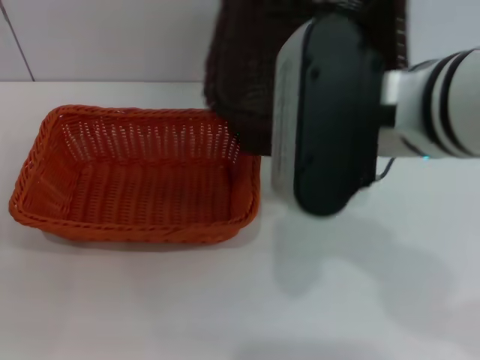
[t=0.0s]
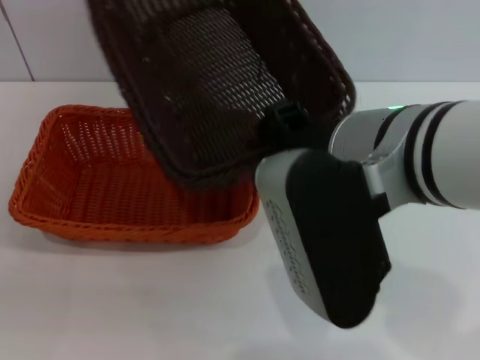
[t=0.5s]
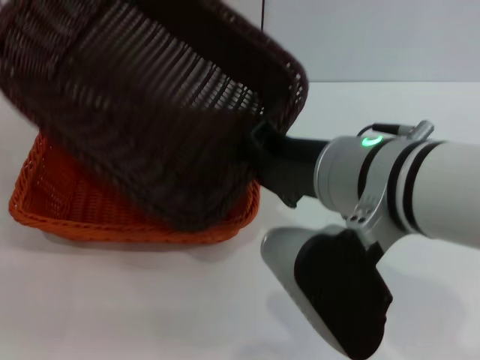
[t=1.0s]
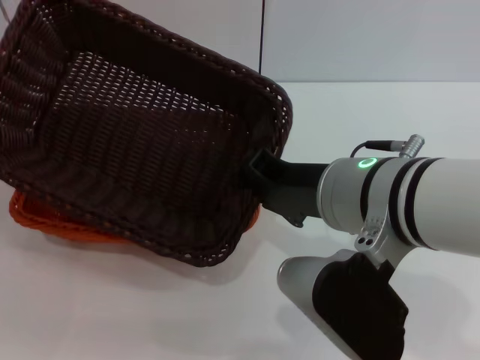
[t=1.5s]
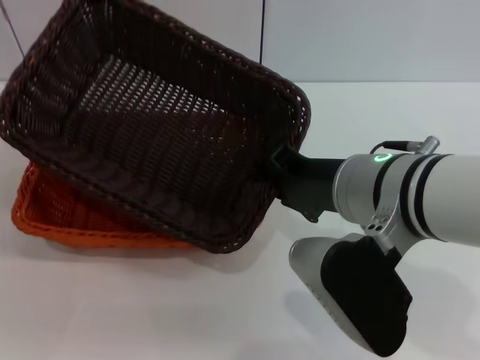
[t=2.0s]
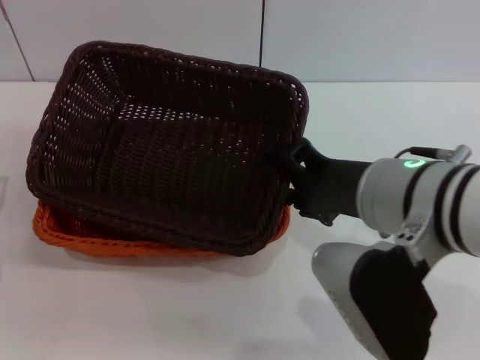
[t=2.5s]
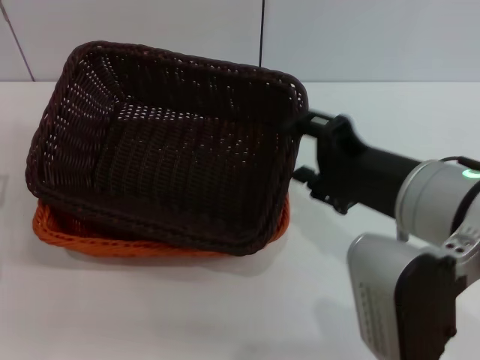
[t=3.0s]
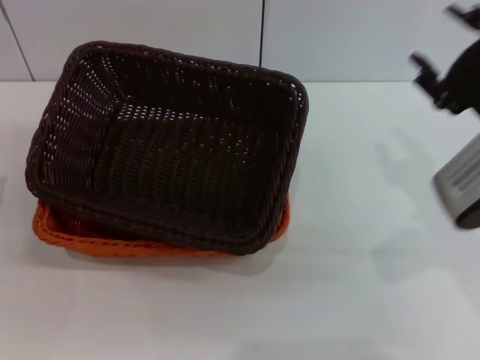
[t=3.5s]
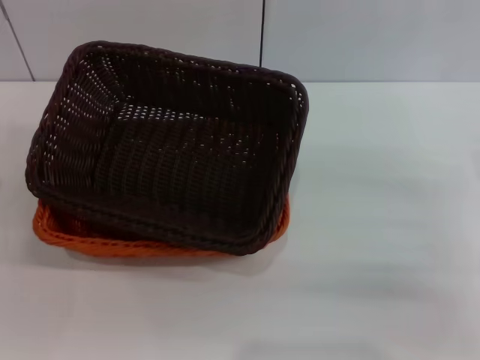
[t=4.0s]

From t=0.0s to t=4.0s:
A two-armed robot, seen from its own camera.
Step, from t=0.0s to t=2.0s: Place the dark basket on the light basket with the right gripper.
From t=0.0s to t=2.0s: The right gripper goes some 10 cm downward.
From t=2.0s to t=4.0s: The right gripper is displaced to the right by roughly 20 cm, and opens its fingers.
